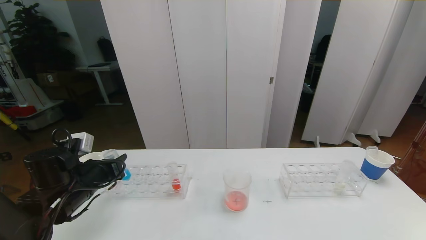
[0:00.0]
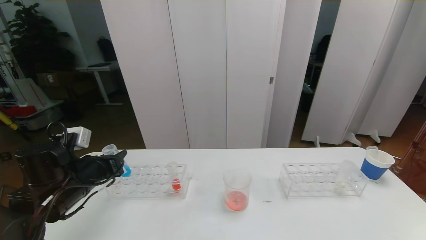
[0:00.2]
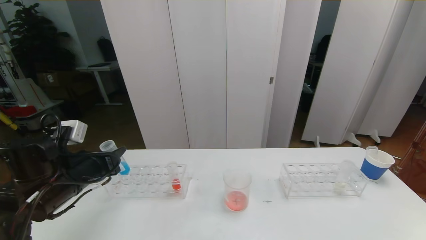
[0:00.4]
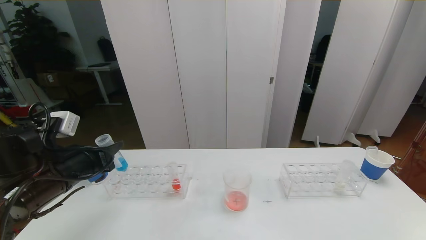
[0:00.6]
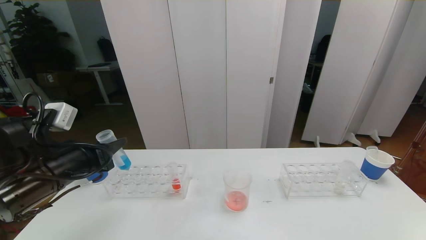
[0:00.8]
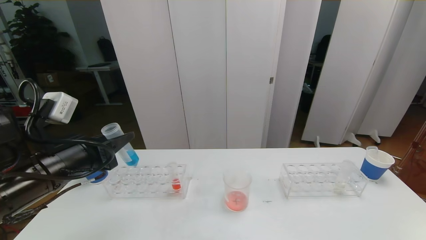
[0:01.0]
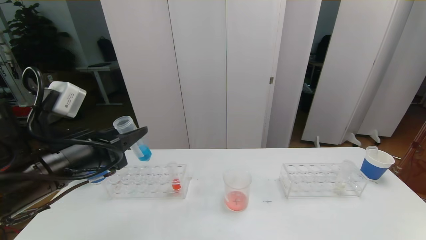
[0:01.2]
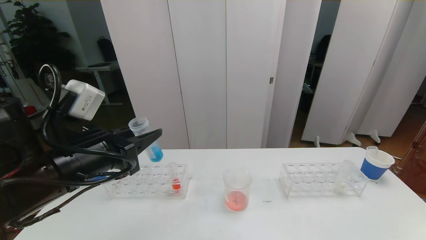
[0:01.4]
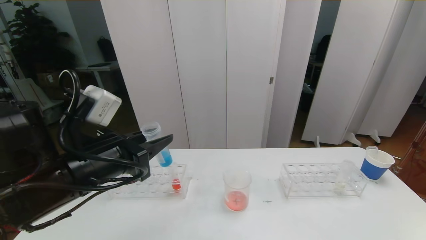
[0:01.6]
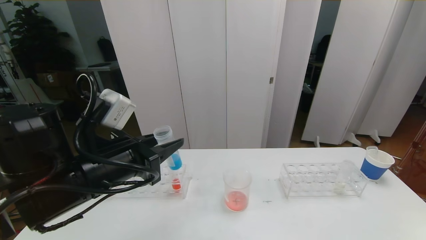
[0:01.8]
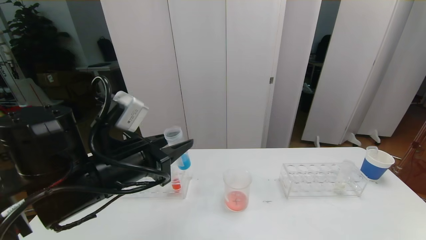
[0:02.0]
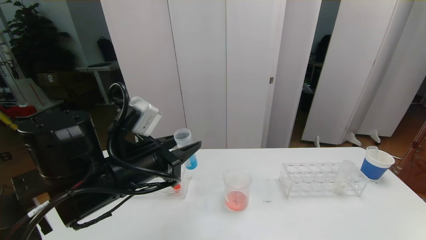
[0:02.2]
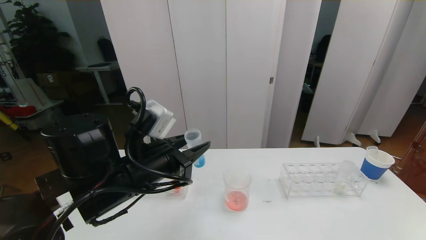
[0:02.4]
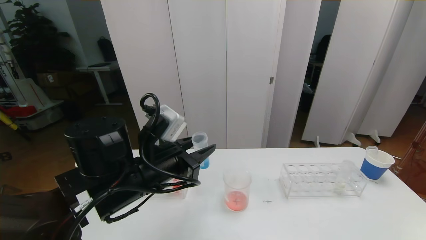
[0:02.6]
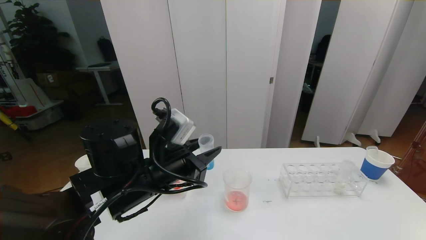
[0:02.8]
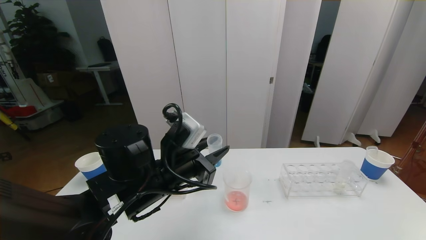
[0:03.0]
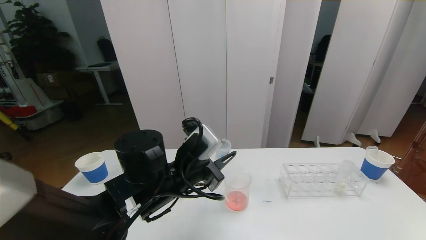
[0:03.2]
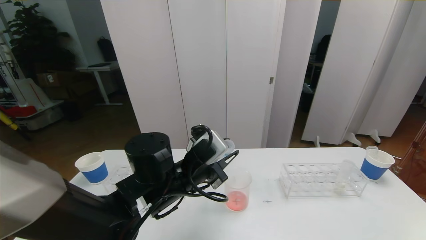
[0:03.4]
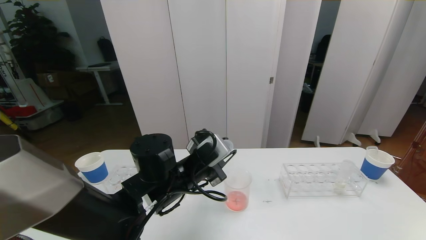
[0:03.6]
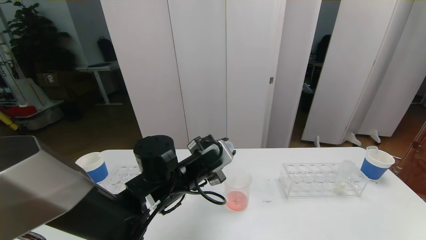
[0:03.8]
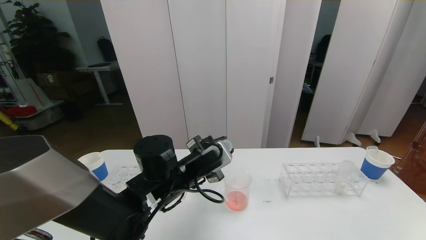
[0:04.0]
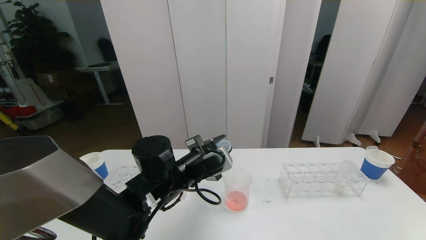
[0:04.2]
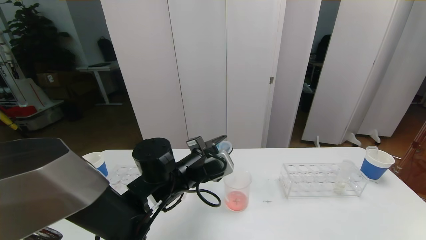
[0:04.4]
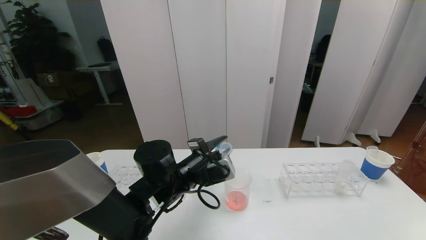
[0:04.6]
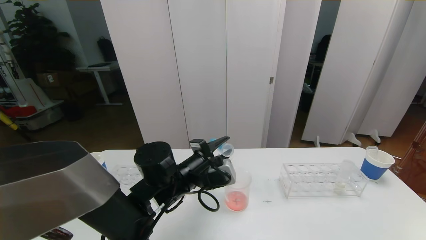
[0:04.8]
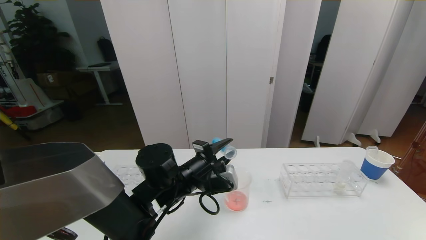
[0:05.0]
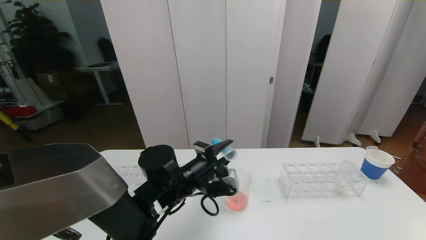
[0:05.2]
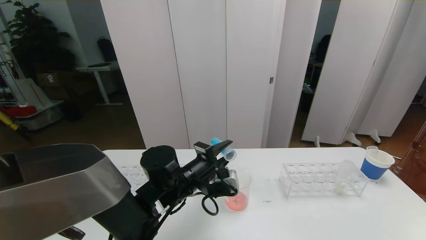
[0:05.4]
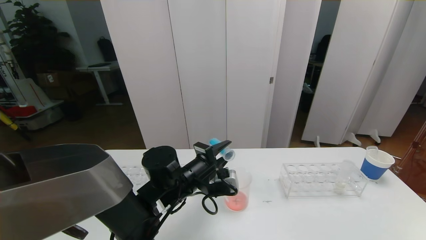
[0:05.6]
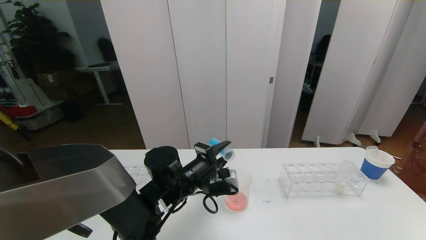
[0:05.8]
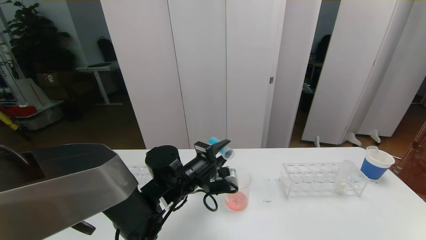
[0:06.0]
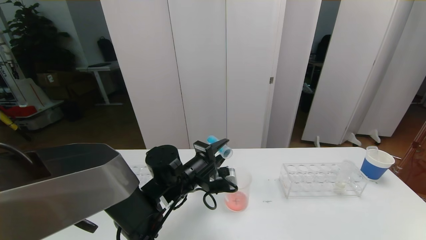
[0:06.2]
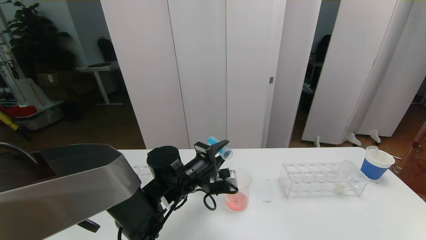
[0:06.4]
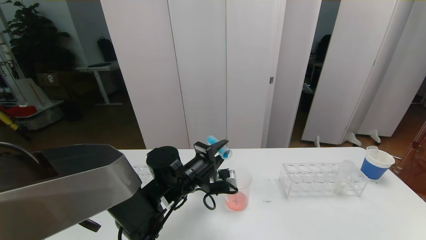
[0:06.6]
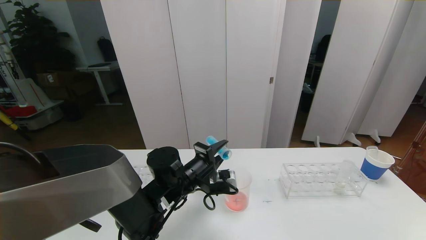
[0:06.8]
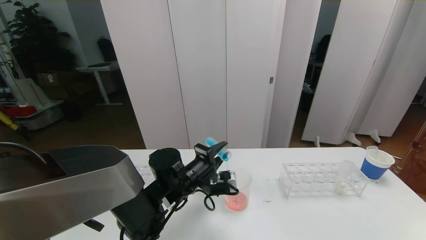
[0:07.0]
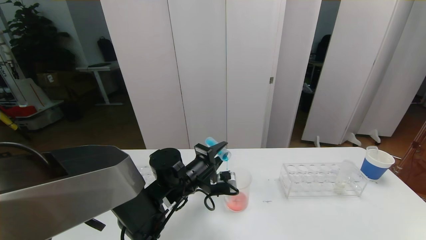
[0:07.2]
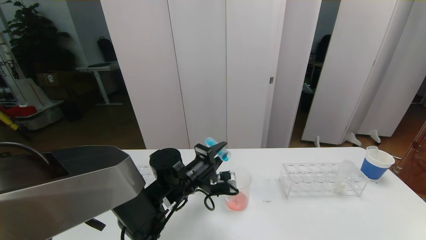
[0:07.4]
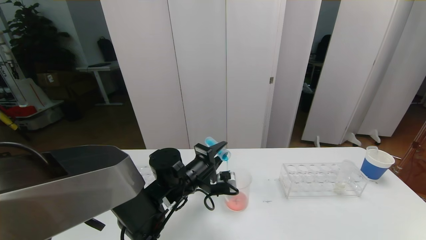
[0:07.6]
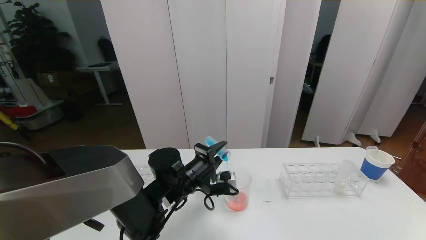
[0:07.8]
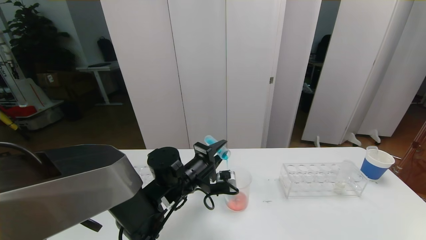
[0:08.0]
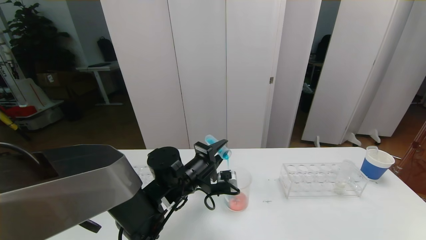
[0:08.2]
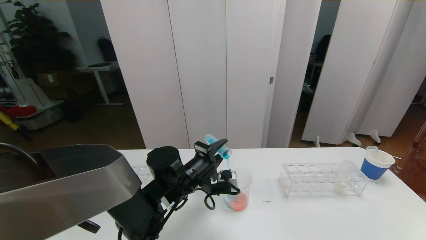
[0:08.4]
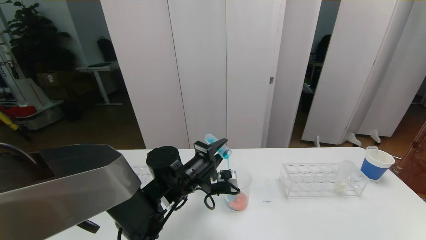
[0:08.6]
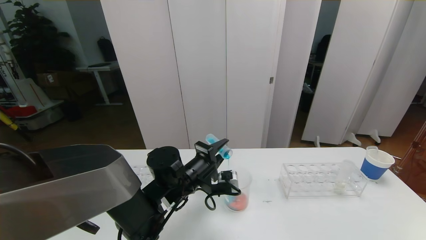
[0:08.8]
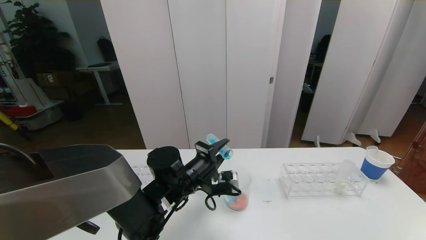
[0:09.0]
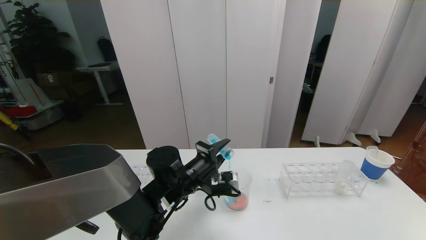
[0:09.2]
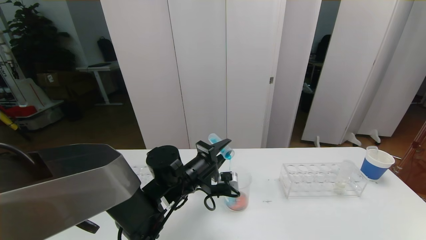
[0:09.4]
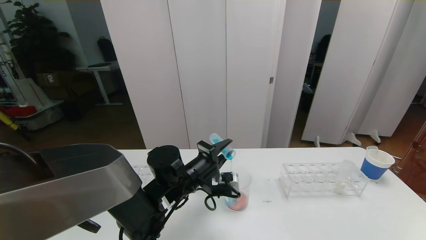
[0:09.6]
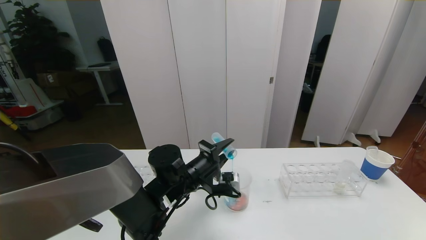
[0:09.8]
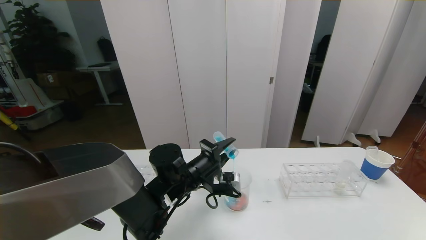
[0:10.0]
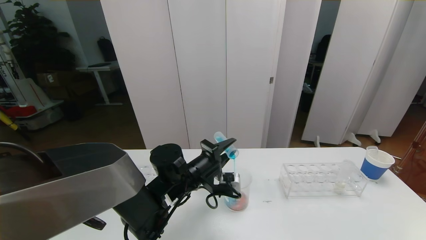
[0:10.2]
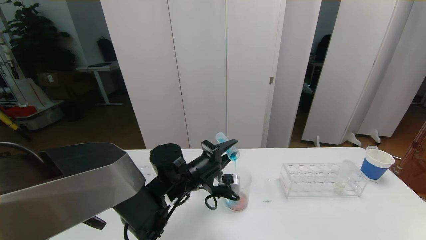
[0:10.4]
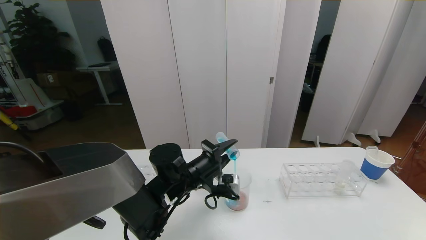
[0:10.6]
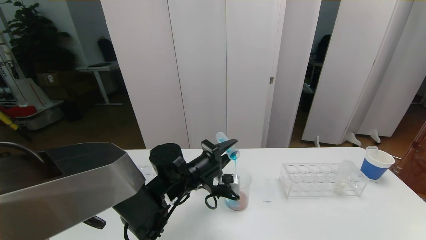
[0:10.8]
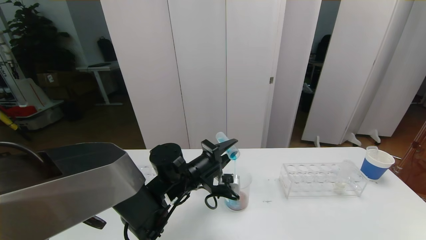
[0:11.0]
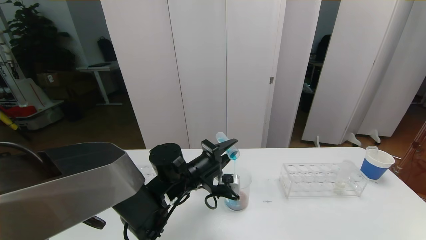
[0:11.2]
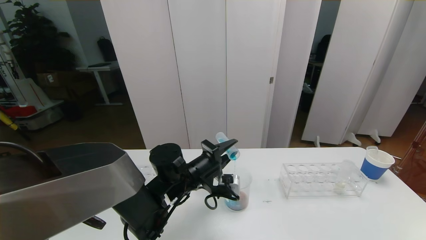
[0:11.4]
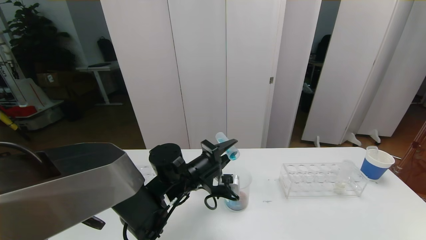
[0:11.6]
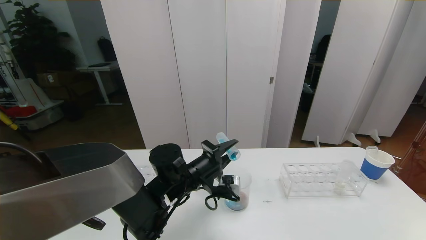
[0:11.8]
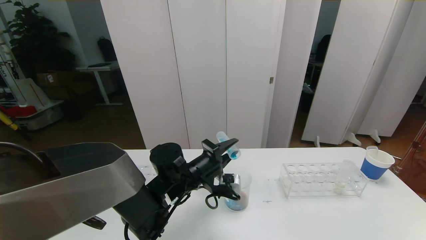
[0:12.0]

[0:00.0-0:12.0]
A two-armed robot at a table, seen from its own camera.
Task of the whole recording: pick up the test tube with red pigment the test tube with blue pigment and the test tube with white pigment by grippers and pour them into the beaker.
0:00.0 to 0:01.6: The left gripper goes roughly 15 cm upward, to the right and backward.
0:01.6 to 0:03.0: The left gripper moves to the right and downward, roughly 10 cm.
0:03.0 to 0:04.4: The left gripper moves roughly 5 cm.
0:06.0 to 0:07.6: The grippers stay close to where they were, moving slightly.
0:07.6 to 0:09.0: Both grippers stay about where they are.
0:09.0 to 0:10.4: The grippers make only small movements.
0:10.4 to 0:12.0: Neither gripper changes place.

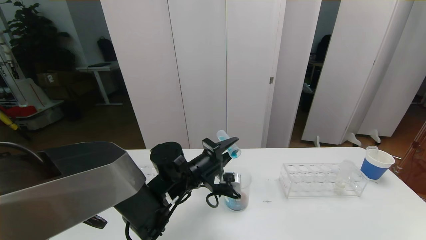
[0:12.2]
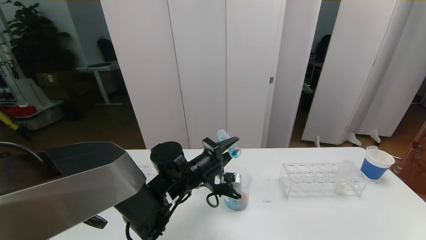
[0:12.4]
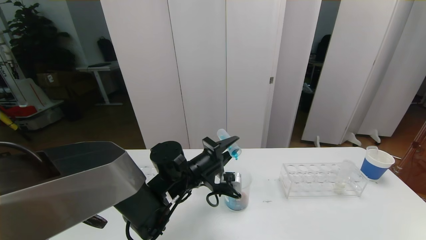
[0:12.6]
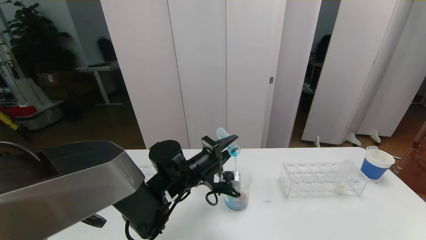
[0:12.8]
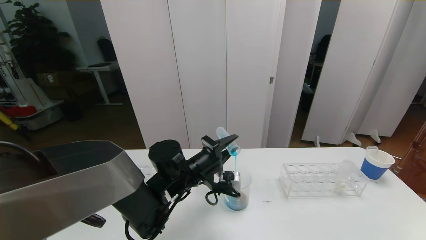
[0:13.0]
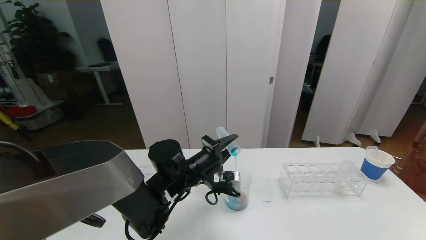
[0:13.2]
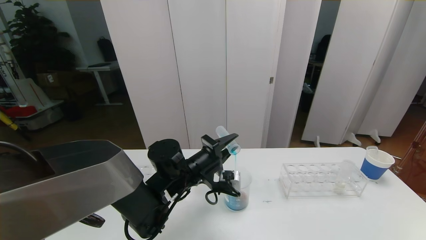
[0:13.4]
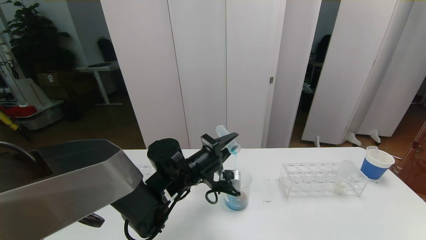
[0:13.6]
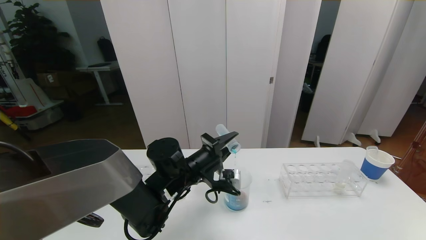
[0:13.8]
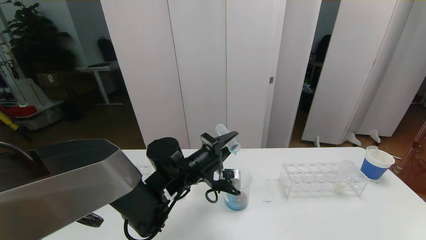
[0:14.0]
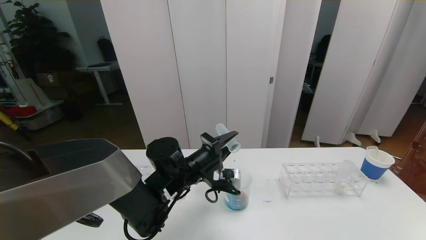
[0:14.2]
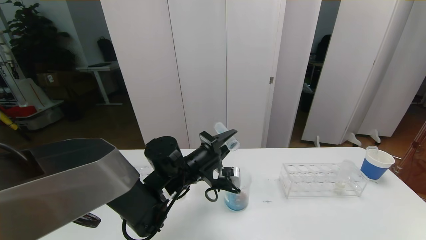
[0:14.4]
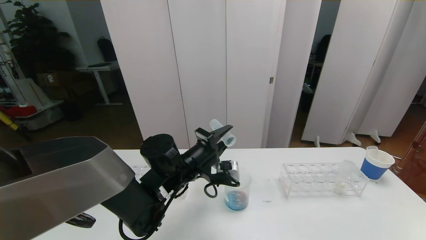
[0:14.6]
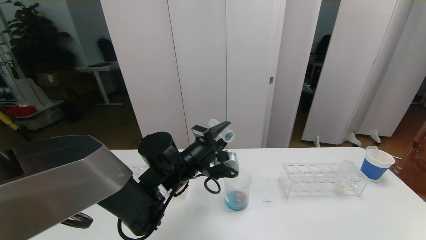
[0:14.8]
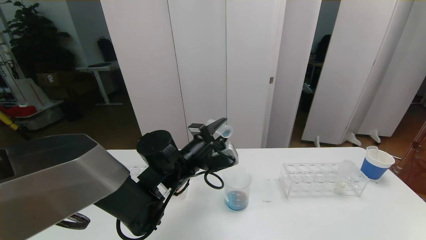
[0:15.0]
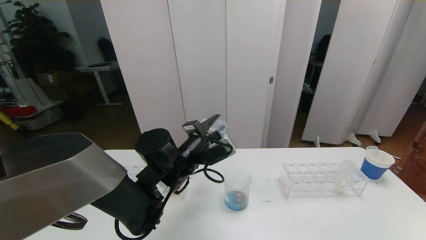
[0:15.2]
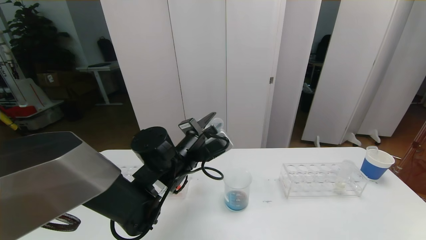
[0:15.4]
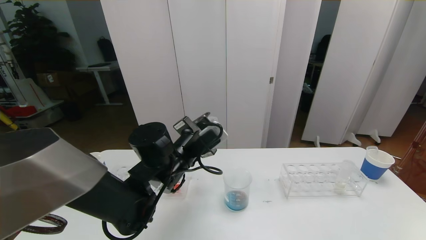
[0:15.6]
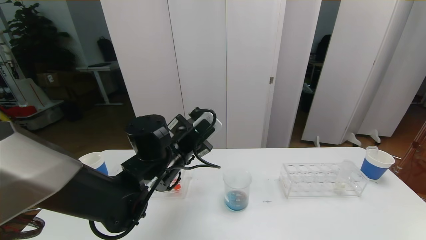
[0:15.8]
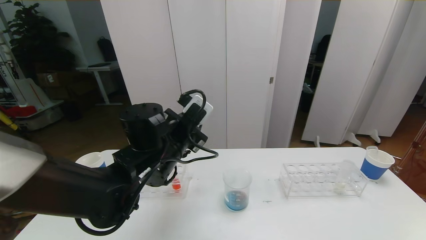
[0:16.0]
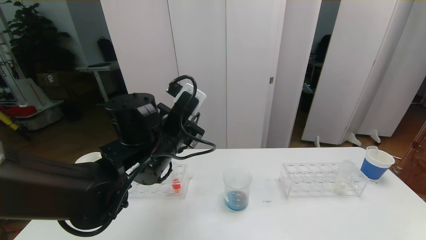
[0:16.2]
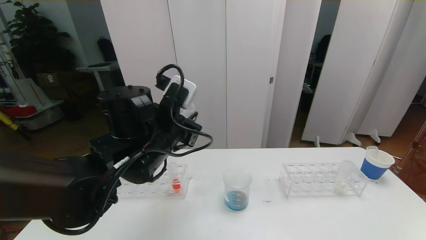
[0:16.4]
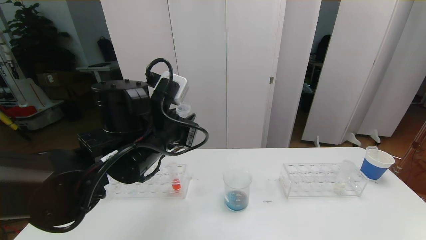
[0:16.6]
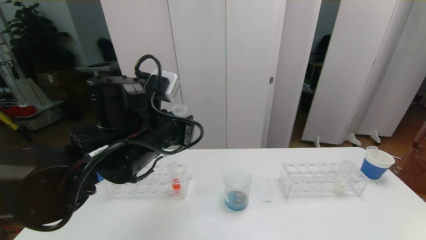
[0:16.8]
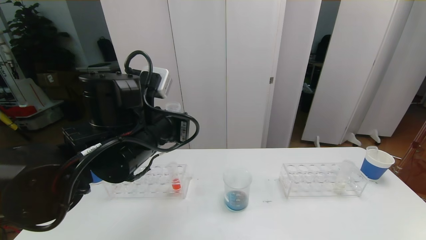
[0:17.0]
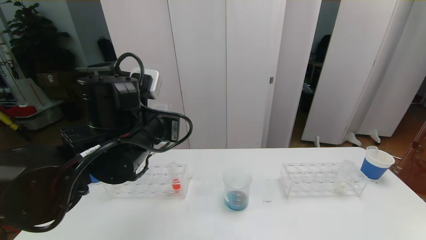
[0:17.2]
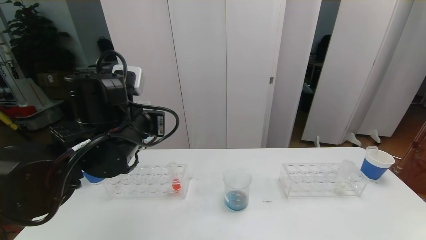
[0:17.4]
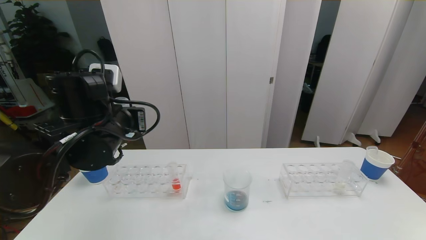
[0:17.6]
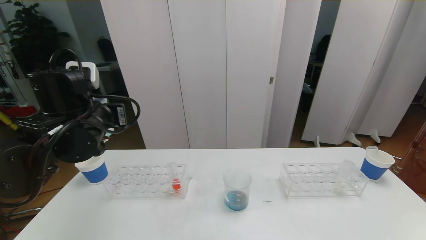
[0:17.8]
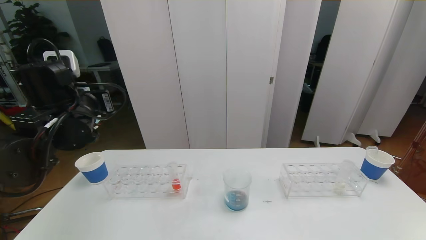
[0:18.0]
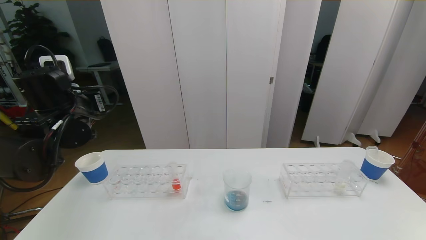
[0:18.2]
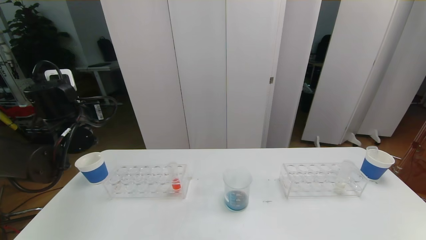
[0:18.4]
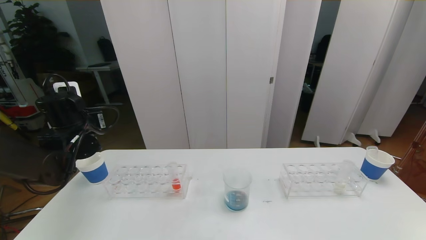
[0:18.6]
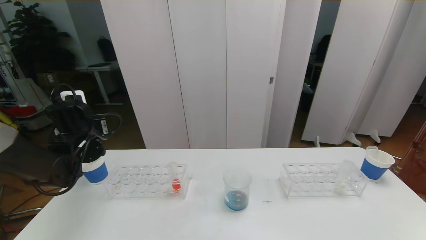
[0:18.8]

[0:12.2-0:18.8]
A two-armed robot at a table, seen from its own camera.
Task of the whole recording: pick up the test tube with red pigment the test tube with blue pigment and the test tube with white pigment by grippers and pour them into the beaker.
0:12.2 to 0:13.8: The two grippers keep their place.
0:15.4 to 0:17.2: The left gripper travels upward and backward by about 10 cm.
0:17.2 to 0:18.8: The left gripper shifts roughly 20 cm to the left, forward and downward.
